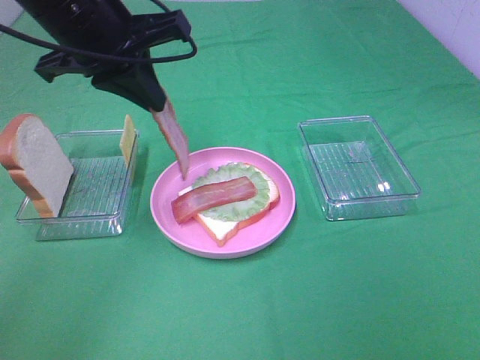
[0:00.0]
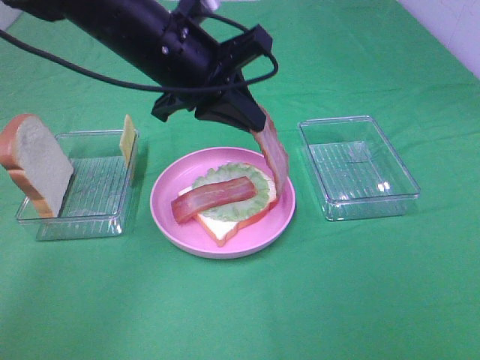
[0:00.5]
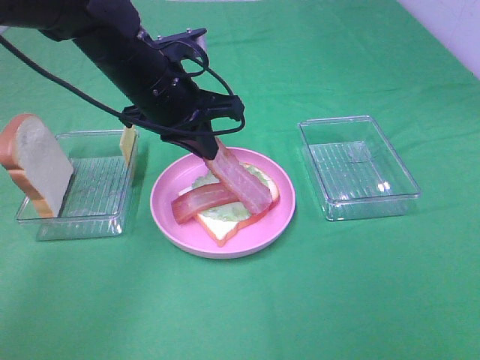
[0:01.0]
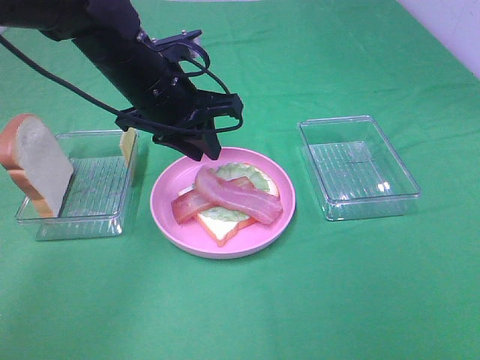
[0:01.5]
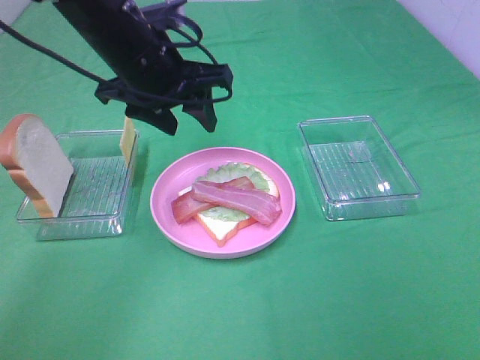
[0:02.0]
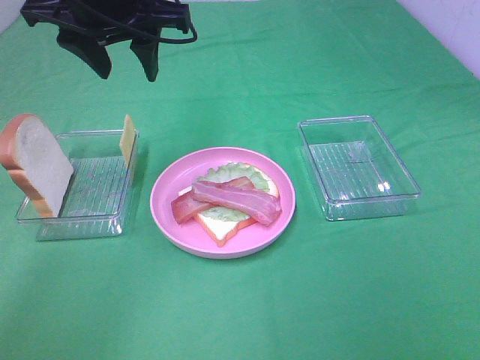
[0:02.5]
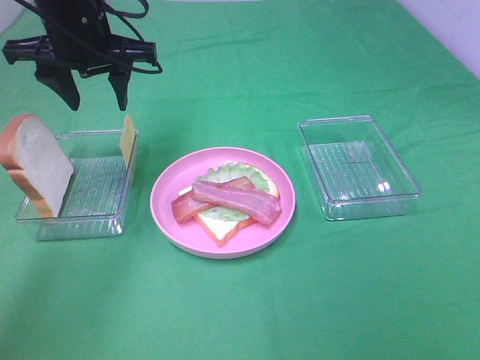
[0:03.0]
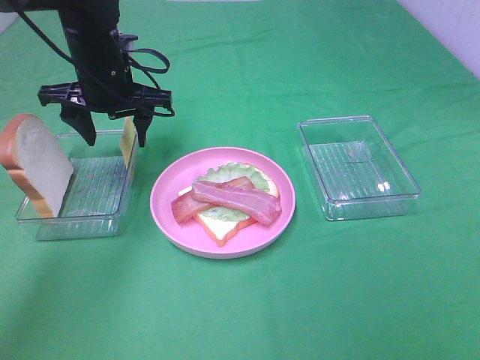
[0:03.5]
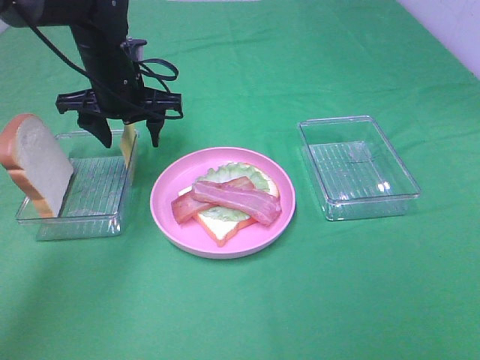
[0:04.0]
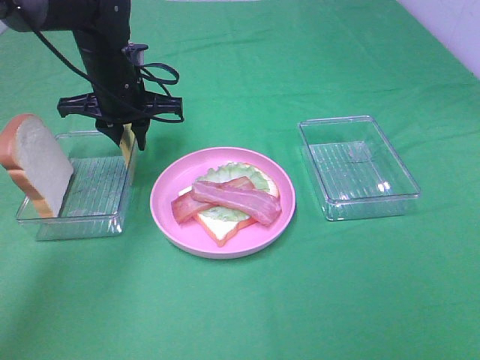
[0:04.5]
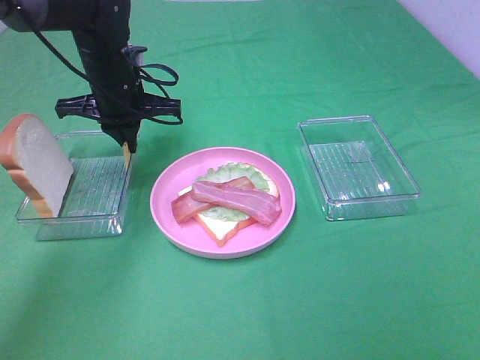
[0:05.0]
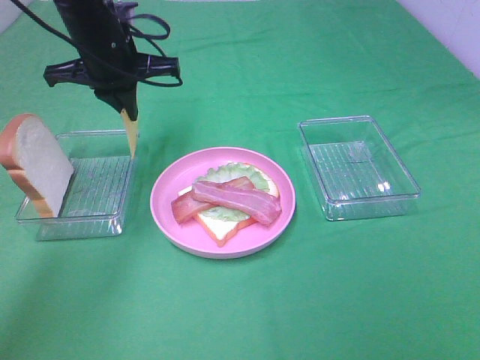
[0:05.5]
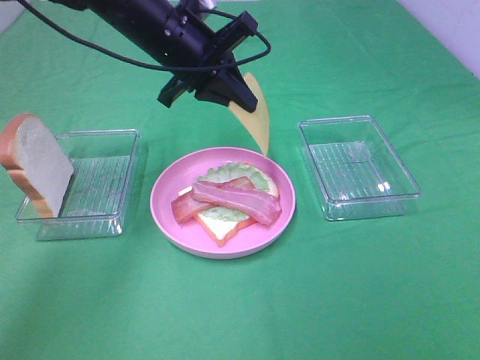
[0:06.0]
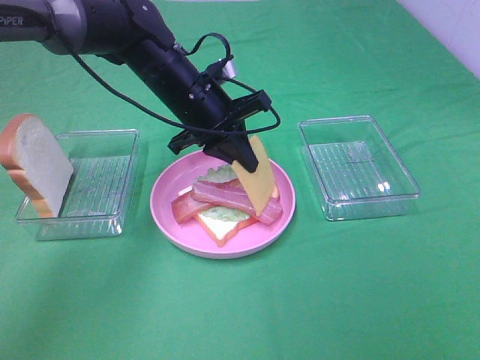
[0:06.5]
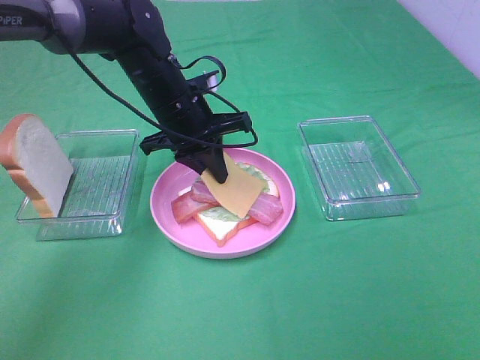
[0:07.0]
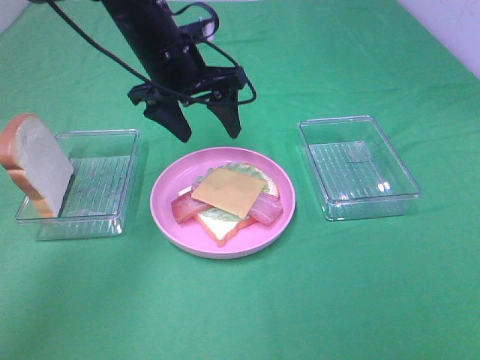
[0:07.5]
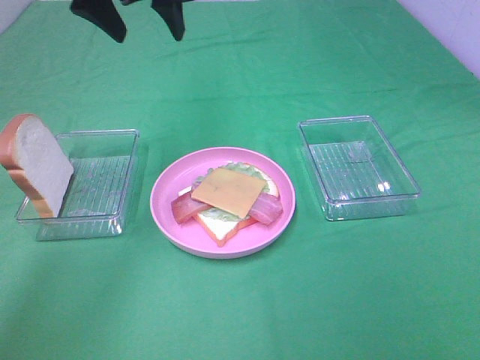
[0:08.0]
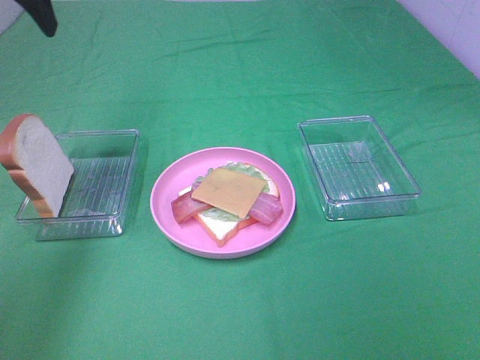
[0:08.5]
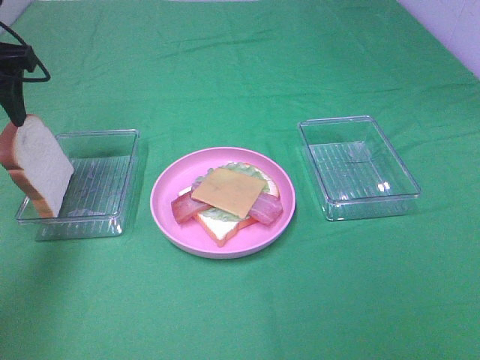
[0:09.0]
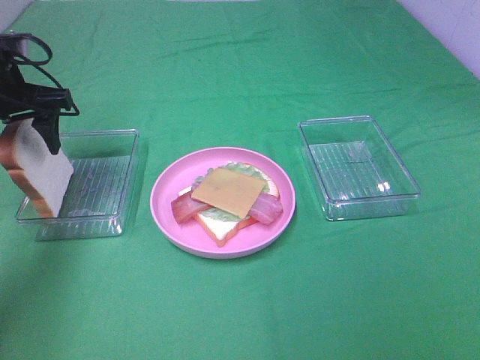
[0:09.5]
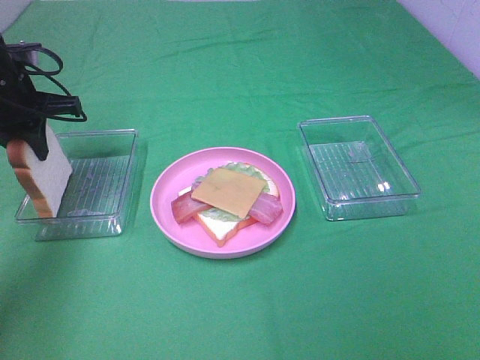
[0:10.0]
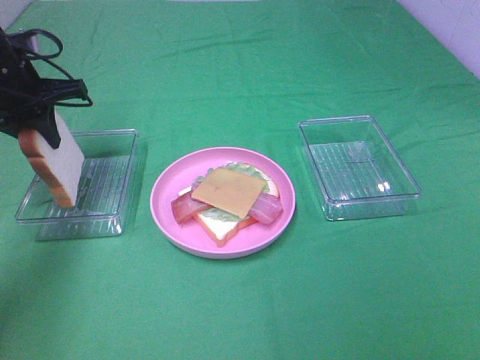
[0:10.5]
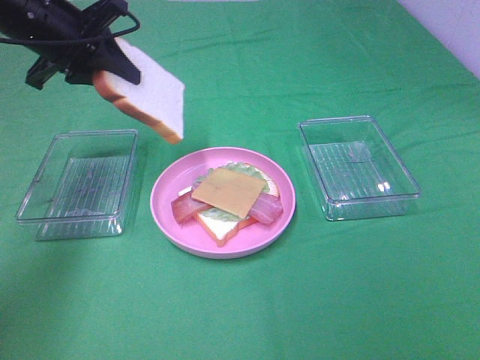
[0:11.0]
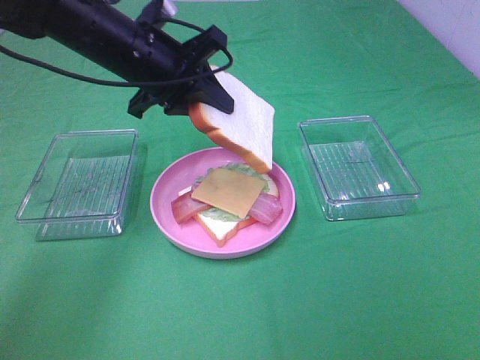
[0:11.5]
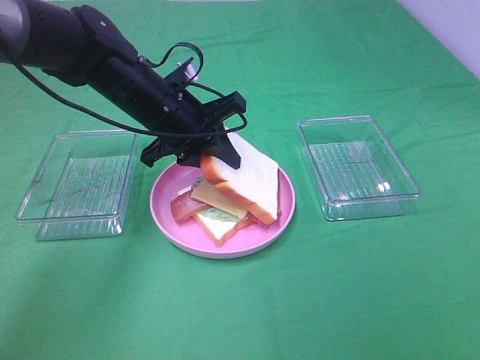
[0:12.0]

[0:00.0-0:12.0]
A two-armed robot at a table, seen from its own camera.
Task of the whole recording: Make sandwiches.
Step, 0:00.0 to 0:01.5: Left hand:place bacon on bacon.
Step, 0:02.0 to 0:05.0: Left hand:grab the cheese slice.
Step, 0:05.5 to 0:07.0: Left hand:place the cheese slice on top of the bacon.
Step, 0:07.5 to 0:10.0: Left hand:grab the bread slice.
0:00.0 to 0:02.0: The left gripper opens its fingers.
0:02.0 to 0:04.0: The left gripper travels downward, forward and to the left by some 10 cm.
0:04.0 to 0:06.0: The left gripper moves to the right and upward, approximately 10 cm, and closes up.
0:06.0 to 0:08.0: The left gripper travels upward and to the left by some 10 cm, and opens.
0:08.0 to 0:10.0: The left gripper is displaced to the left and downward by approximately 20 cm, and closes its fingers.
0:10.0 to 0:12.0: The left gripper goes about 20 cm to the right.

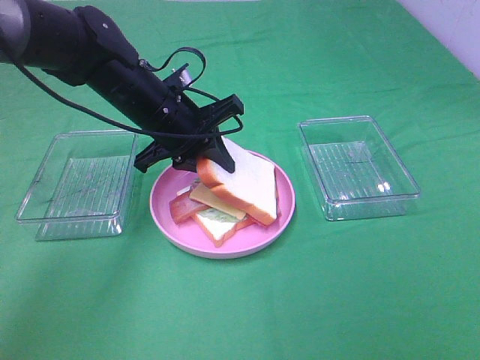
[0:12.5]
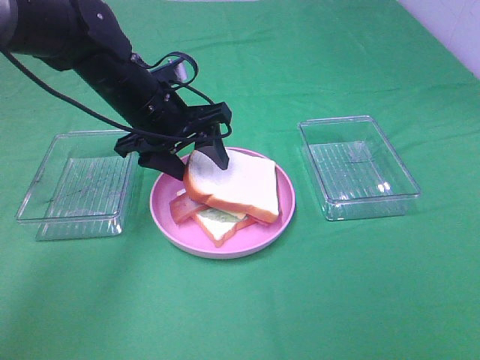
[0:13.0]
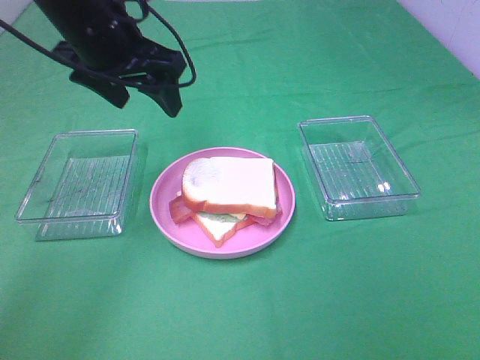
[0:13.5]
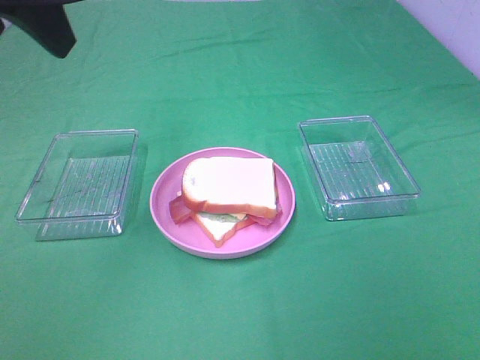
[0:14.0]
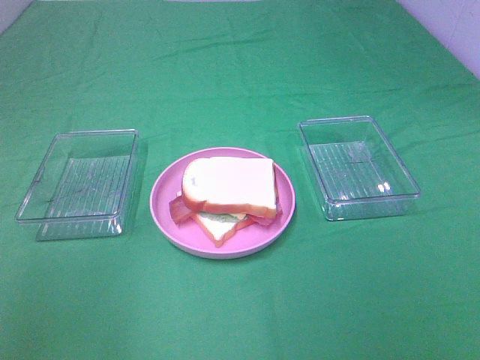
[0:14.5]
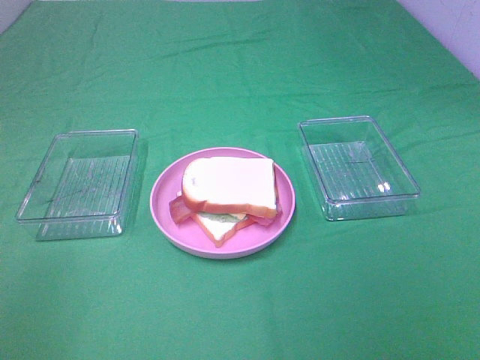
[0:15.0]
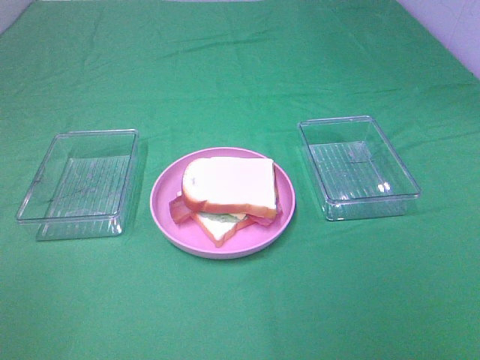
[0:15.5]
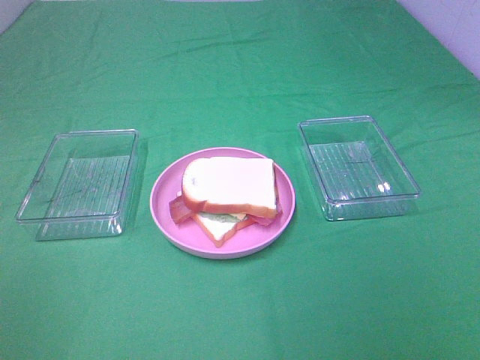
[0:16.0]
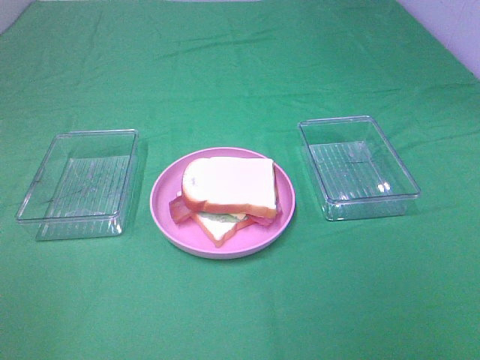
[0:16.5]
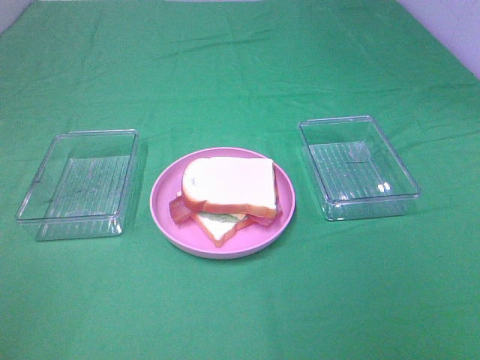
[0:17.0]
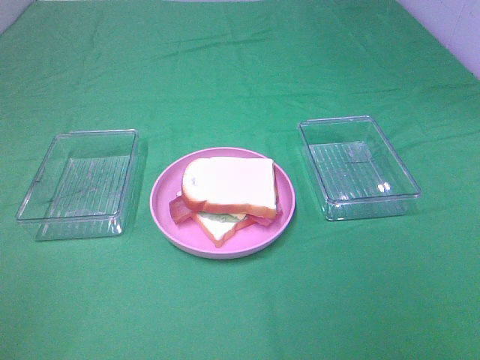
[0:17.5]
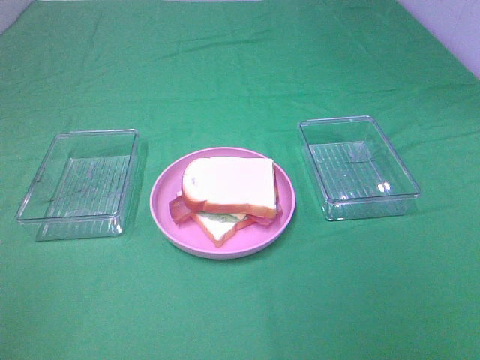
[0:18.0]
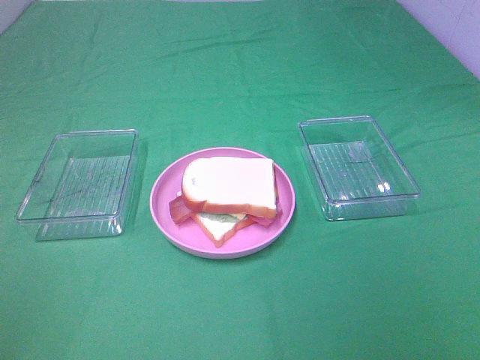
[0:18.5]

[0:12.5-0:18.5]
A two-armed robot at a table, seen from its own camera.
Task of the whole recording: Make sandwiches.
0:12.5 to 0:14.5: The left gripper heads backward, upward and to the left, covering roughly 35 cm, and opens up.
0:14.5 to 0:16.5: The left gripper is displaced backward, downward and to the left by approximately 15 cm.
